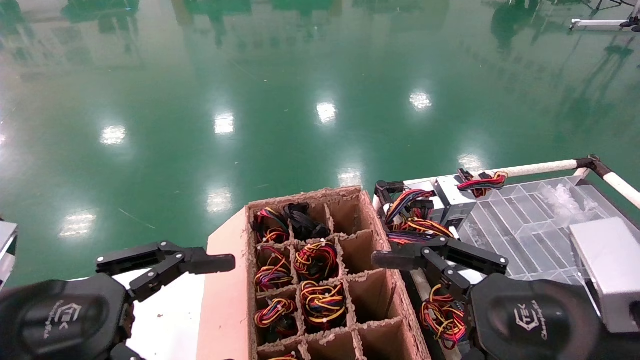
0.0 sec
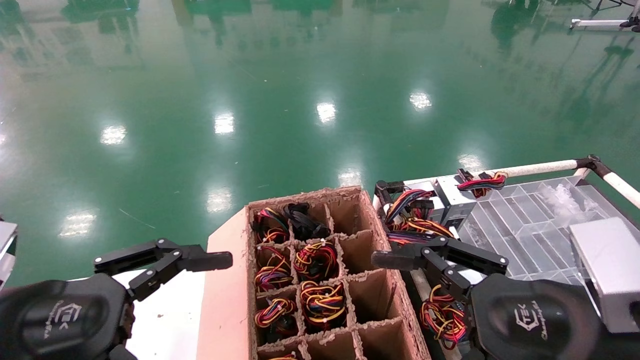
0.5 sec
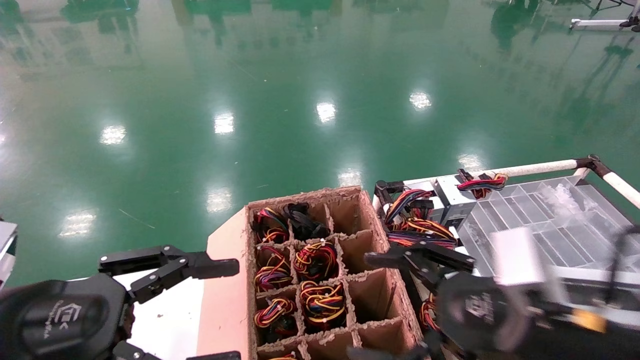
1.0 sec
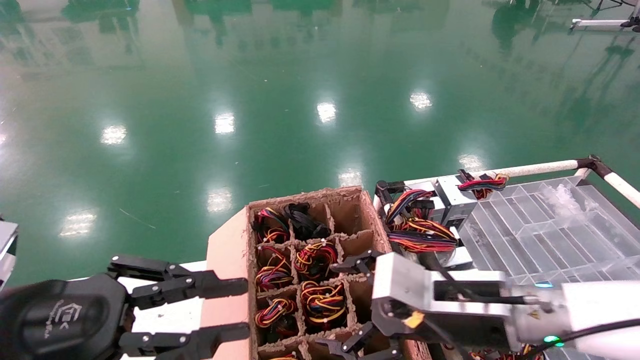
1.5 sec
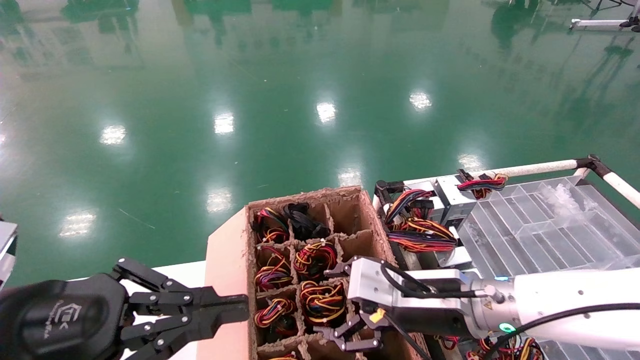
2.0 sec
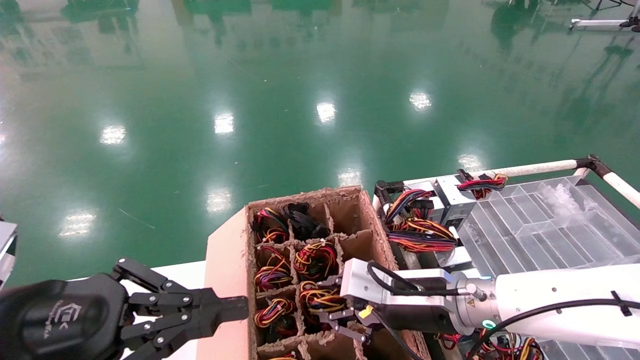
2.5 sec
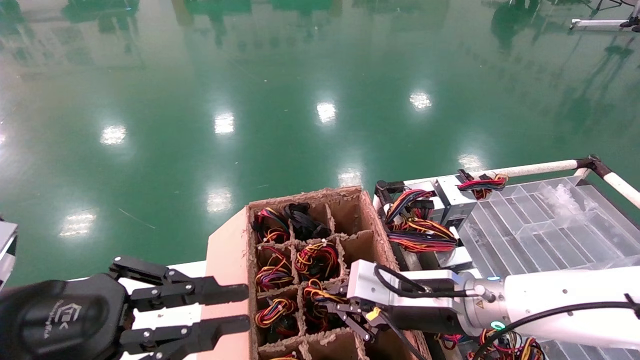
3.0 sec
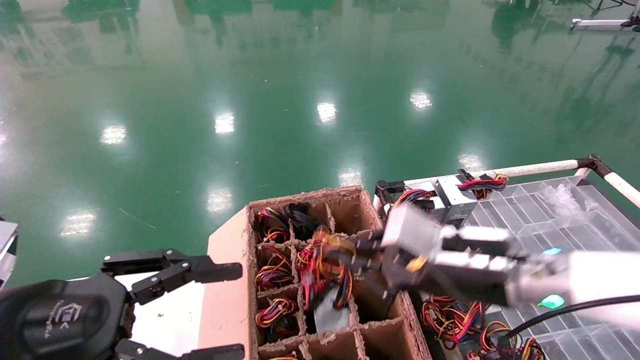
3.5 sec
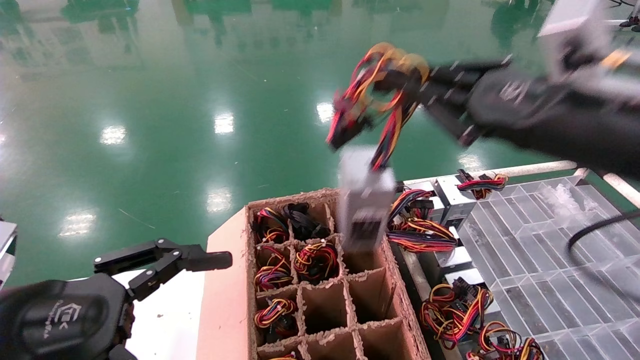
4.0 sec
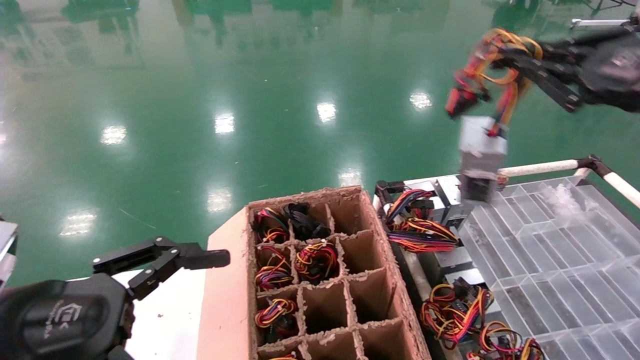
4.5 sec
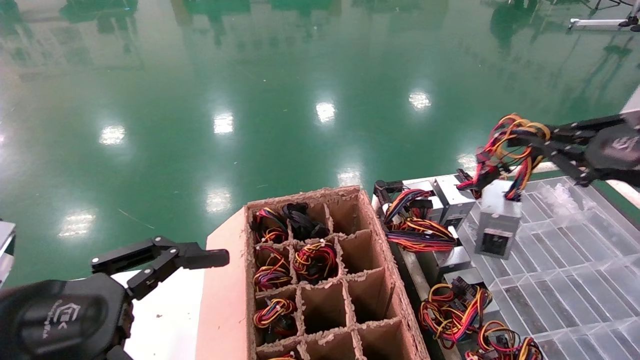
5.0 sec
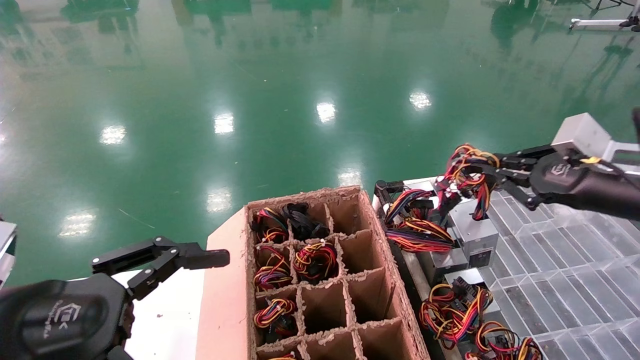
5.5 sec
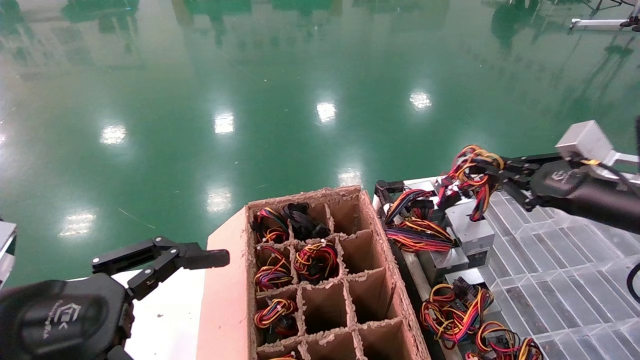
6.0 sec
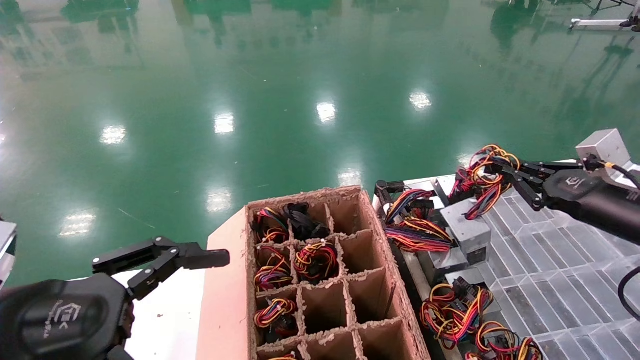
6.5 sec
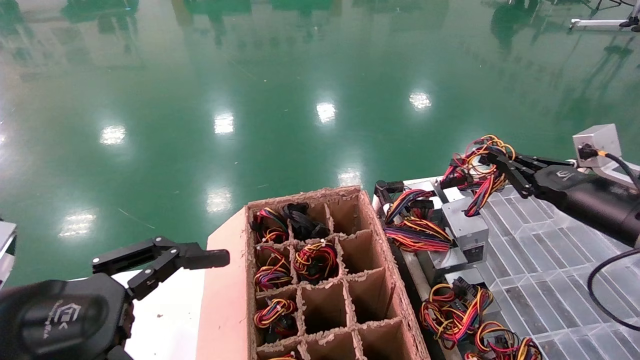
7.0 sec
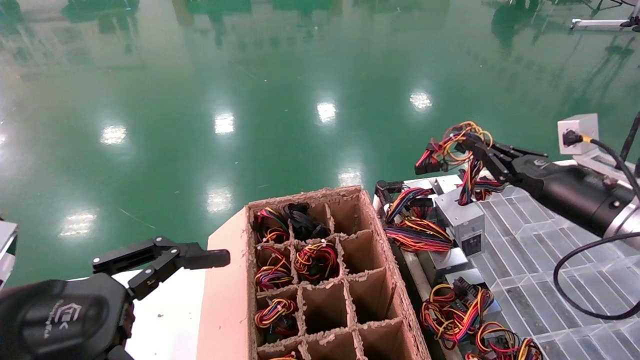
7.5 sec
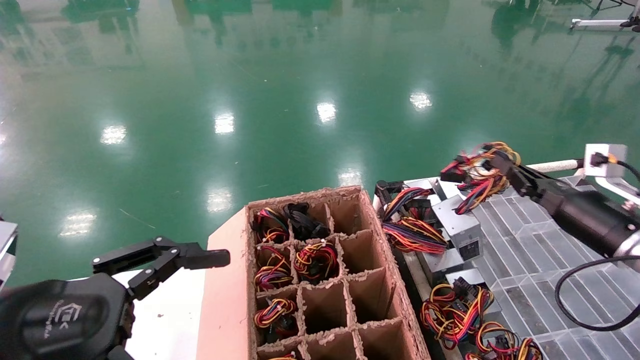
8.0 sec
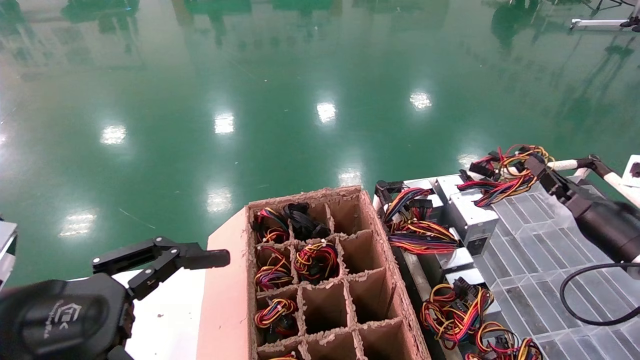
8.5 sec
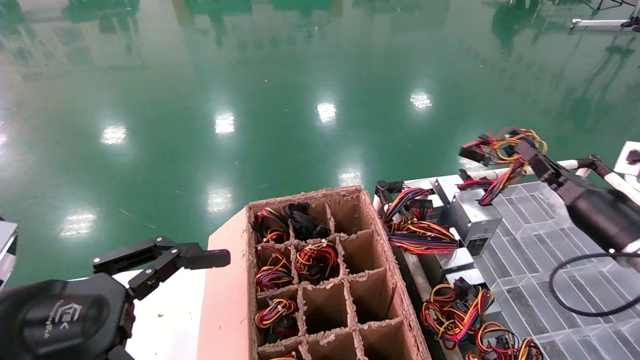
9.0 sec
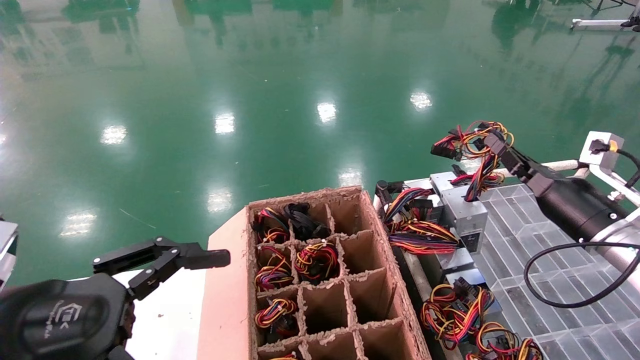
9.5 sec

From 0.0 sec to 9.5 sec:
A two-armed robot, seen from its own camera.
Step, from 2.0 sec to 3.0 sec: Grab and lift the power supply from the large box.
From 0.0 sec to 2.0 sec: The left gripper closes up; the right gripper goes some 20 cm forward, to the left and downward.
From 2.0 sec to 4.0 sec: The right gripper heads upward and to the right, covering approximately 20 cm, and closes its fingers, while the left gripper opens up.
From 4.0 sec to 5.5 sec: The right gripper goes approximately 15 cm to the right, forward and downward.
From 5.5 sec to 7.5 sec: The right gripper moves downward and forward, about 5 cm.

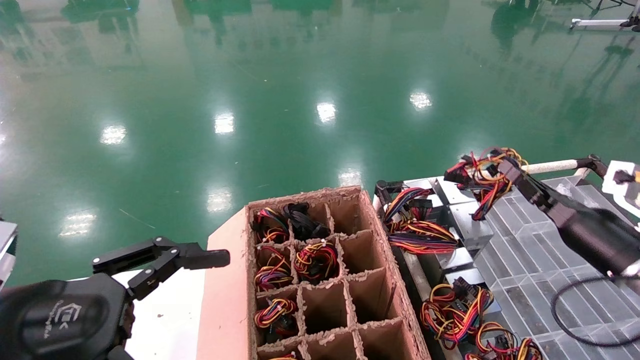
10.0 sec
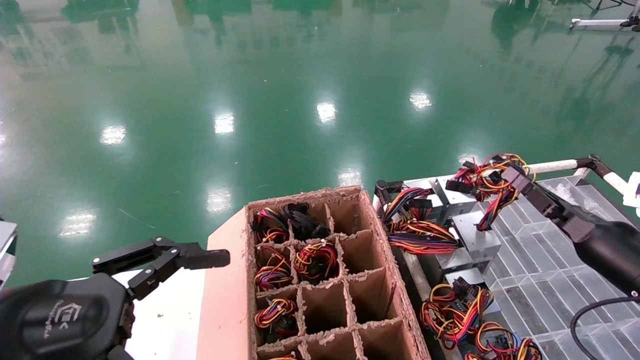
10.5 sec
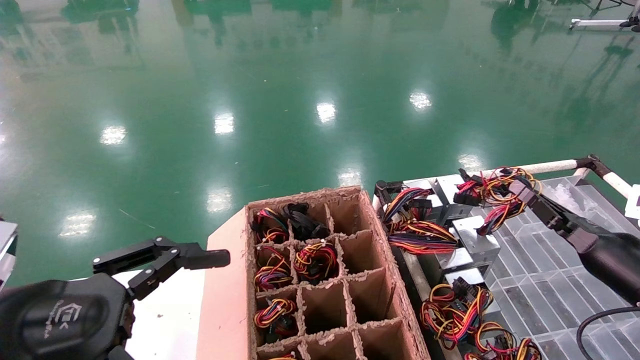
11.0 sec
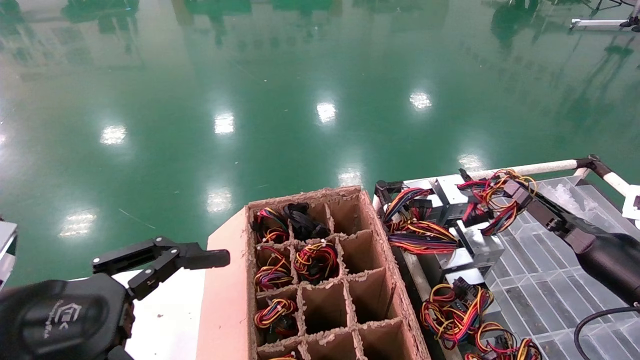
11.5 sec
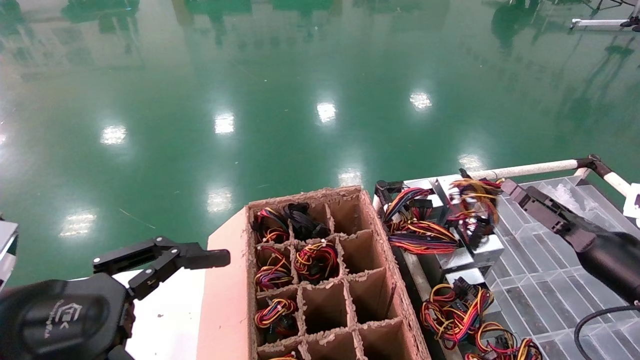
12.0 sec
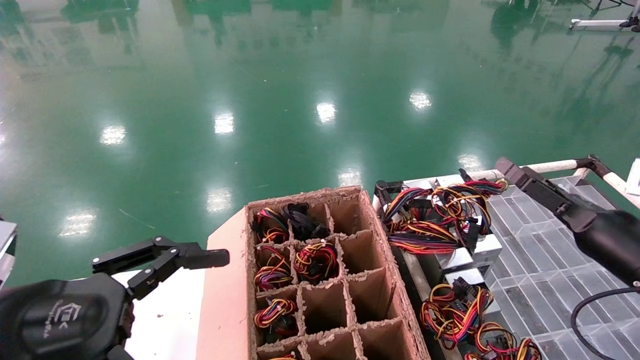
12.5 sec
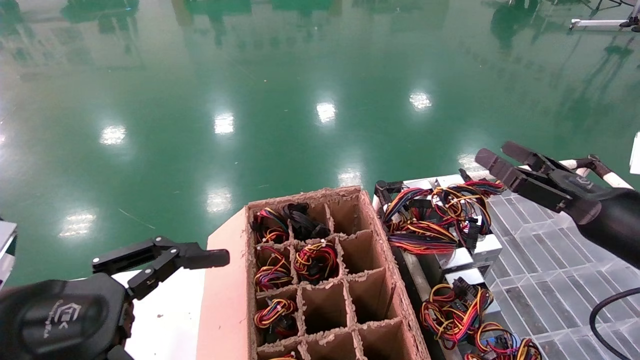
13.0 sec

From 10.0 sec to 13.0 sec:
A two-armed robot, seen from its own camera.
From 10.0 sec to 11.5 sec: The grippers move only a little.
From 11.5 sec to 13.0 sec: The right gripper is displaced upward by some 10 cm, and opens.
